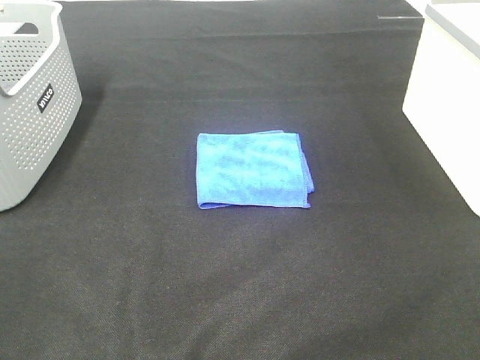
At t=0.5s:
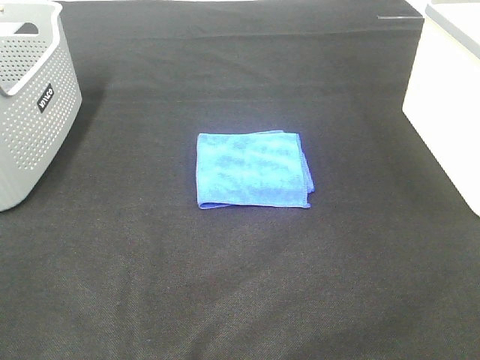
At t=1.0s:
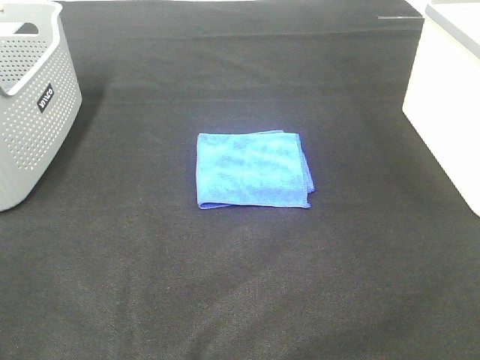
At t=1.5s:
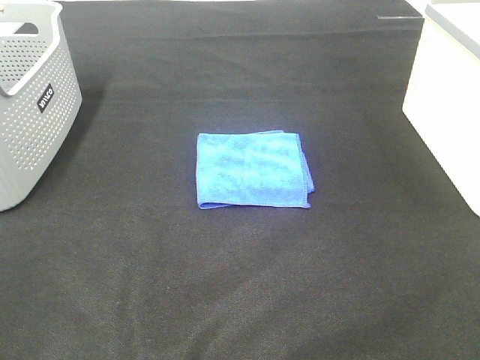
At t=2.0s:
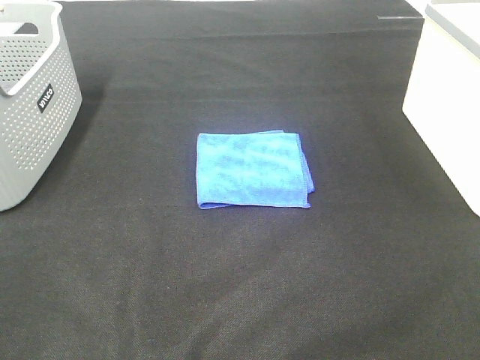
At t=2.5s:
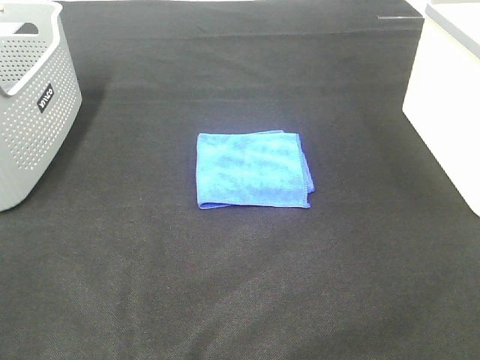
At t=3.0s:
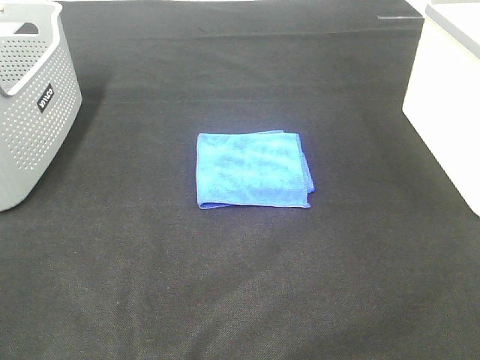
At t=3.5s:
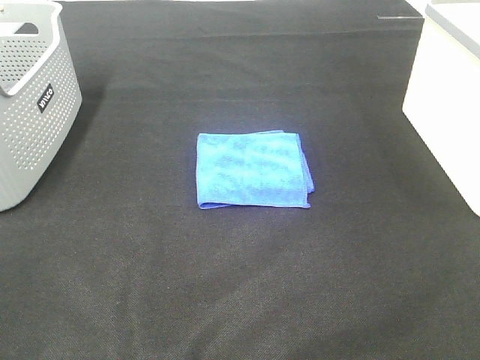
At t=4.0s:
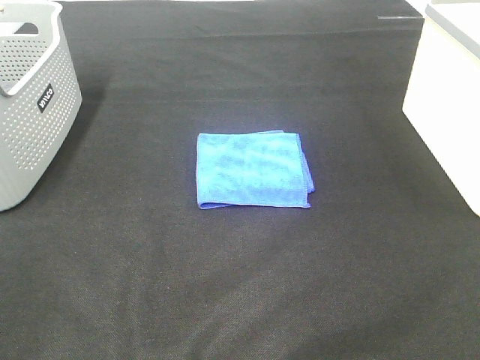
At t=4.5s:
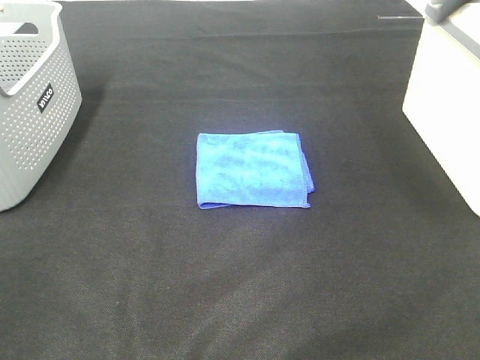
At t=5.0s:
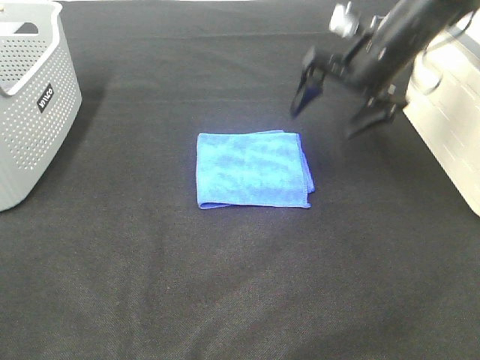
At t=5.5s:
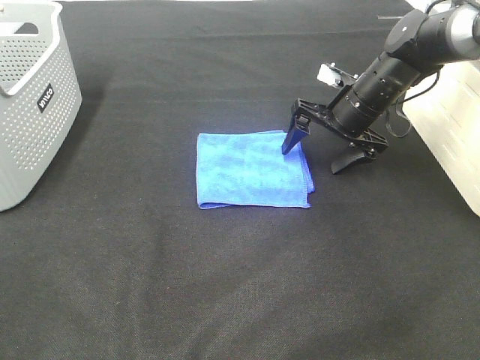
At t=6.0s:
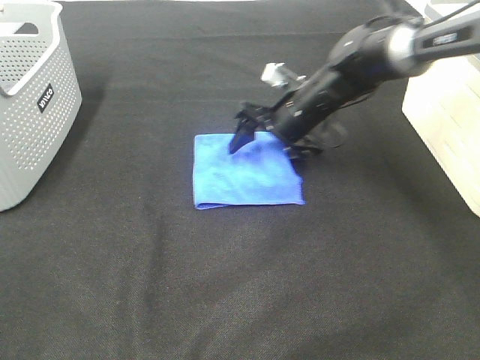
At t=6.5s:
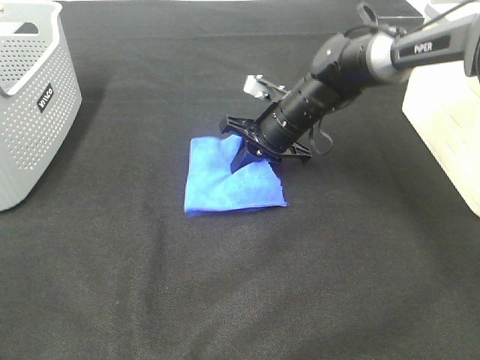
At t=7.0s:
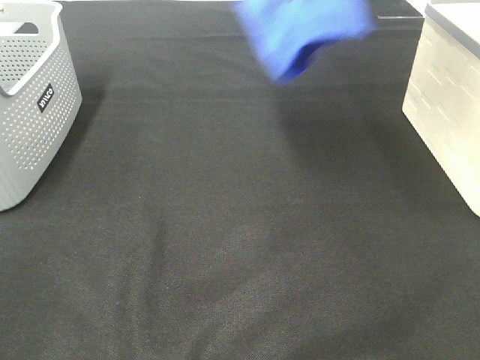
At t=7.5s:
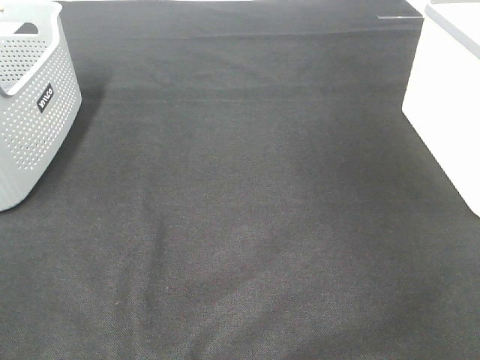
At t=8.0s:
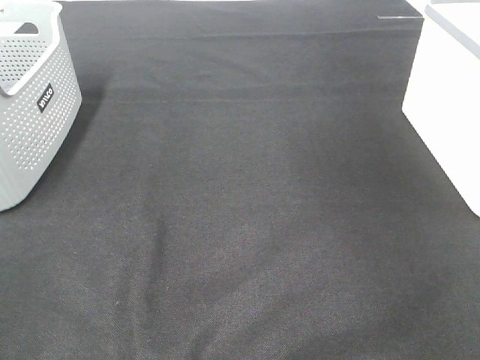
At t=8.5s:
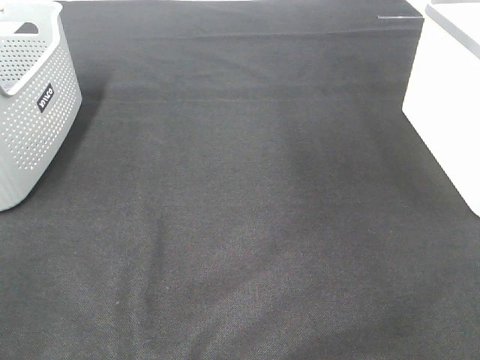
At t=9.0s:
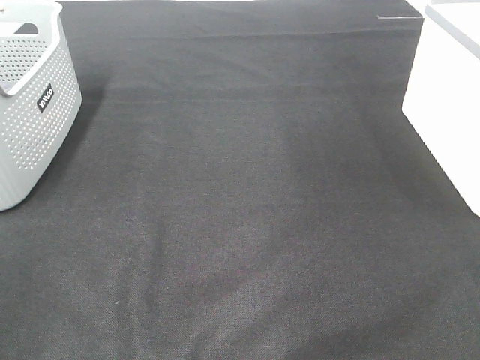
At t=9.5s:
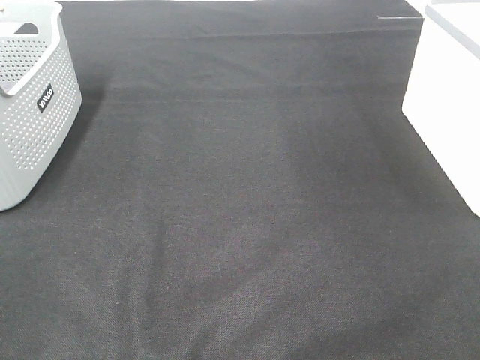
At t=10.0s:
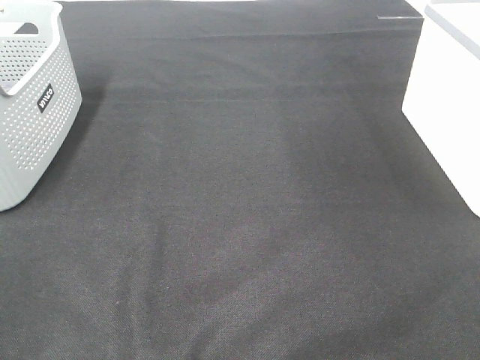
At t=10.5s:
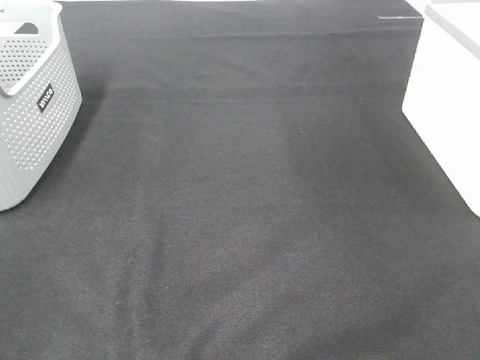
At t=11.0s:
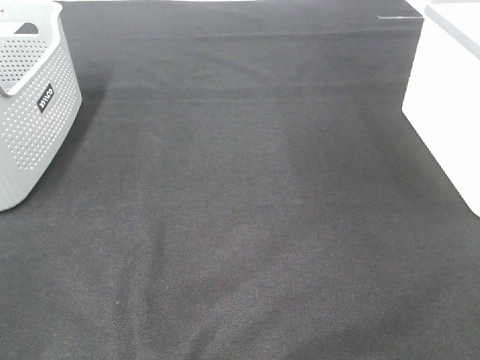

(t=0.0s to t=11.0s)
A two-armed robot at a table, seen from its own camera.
Step, t=0.0s - t=6.0s: Right hand: grab the folded blue towel.
Step, t=6.5s - t=8.0s: Right hand: place the blue towel in right basket.
t=0.0s - t=3.5s: Both grippers stay put.
t=3.5s - t=5.5s: The right gripper travels forward by some 50 cm.
t=5.5s - t=7.5s: The right gripper shifts some 40 cm upward and to the right, and closes up.

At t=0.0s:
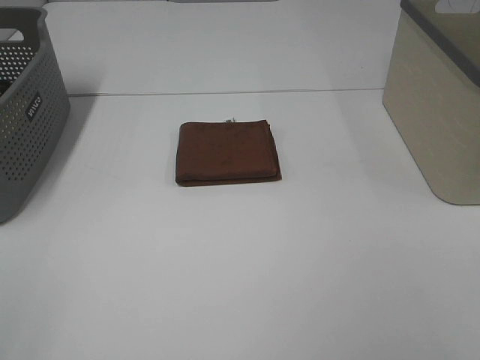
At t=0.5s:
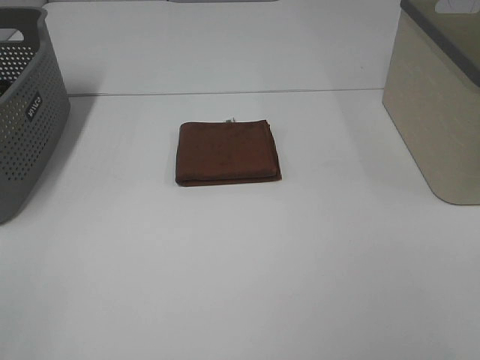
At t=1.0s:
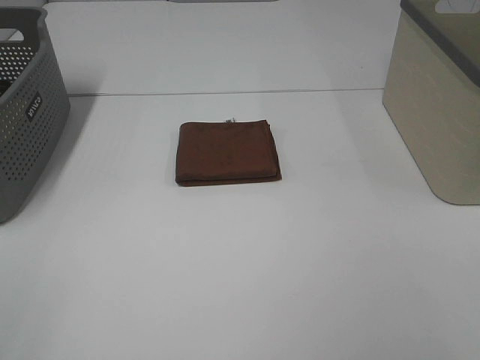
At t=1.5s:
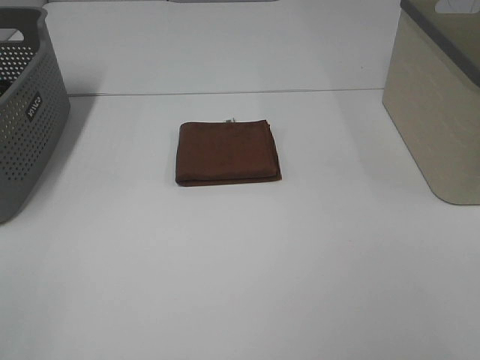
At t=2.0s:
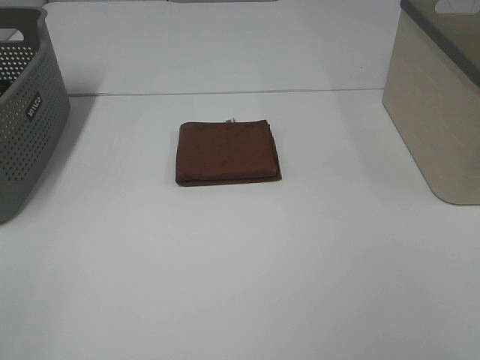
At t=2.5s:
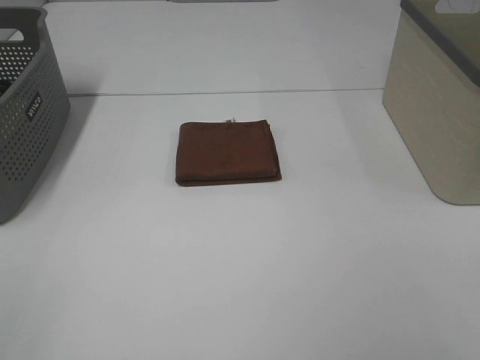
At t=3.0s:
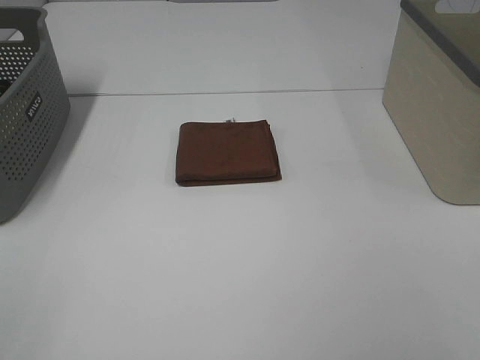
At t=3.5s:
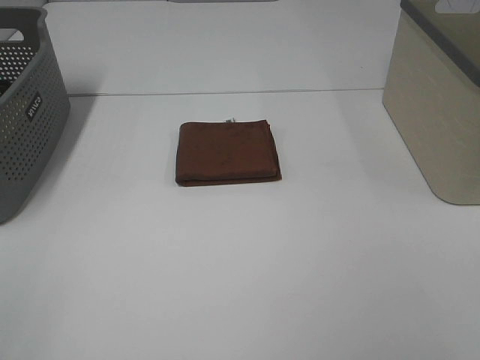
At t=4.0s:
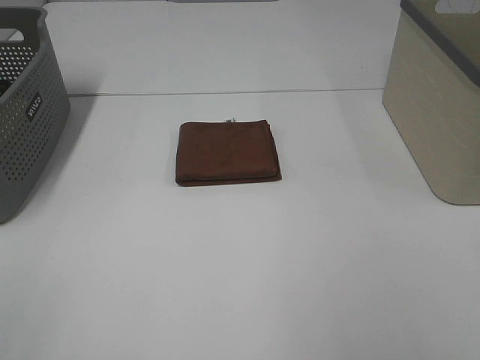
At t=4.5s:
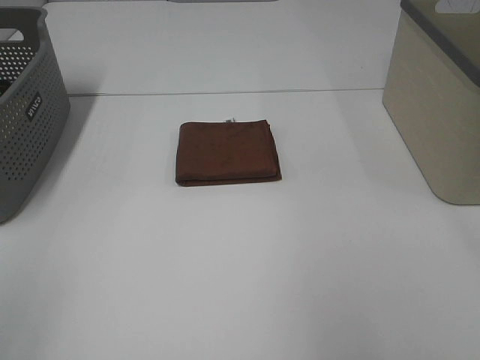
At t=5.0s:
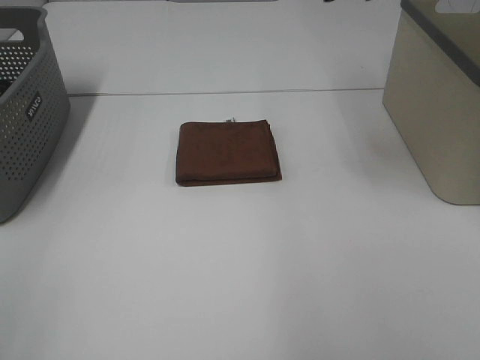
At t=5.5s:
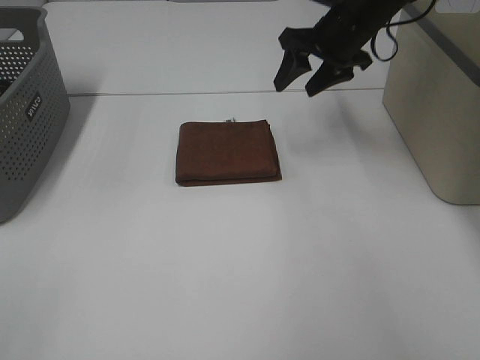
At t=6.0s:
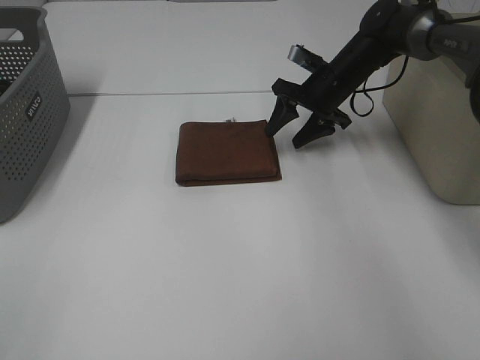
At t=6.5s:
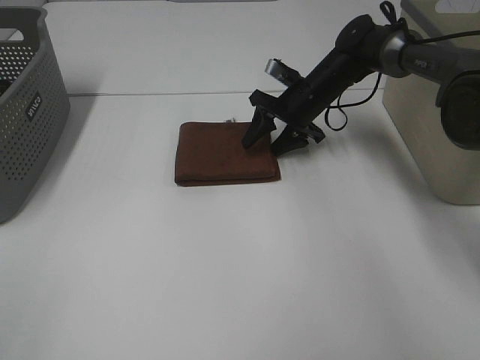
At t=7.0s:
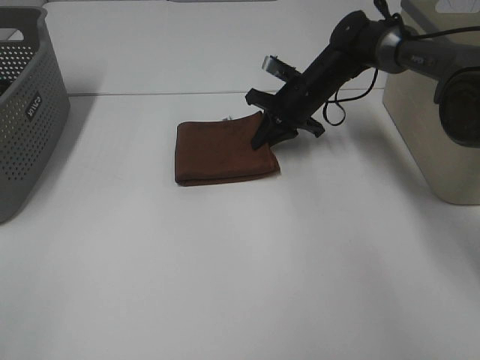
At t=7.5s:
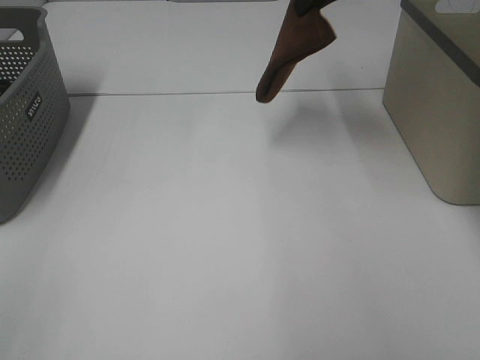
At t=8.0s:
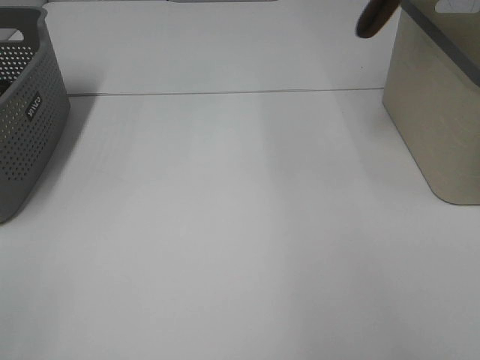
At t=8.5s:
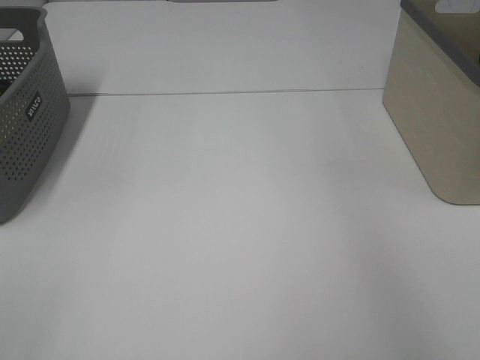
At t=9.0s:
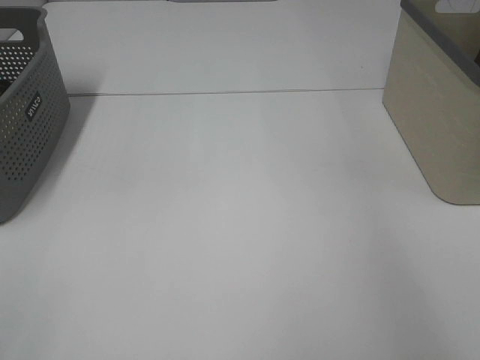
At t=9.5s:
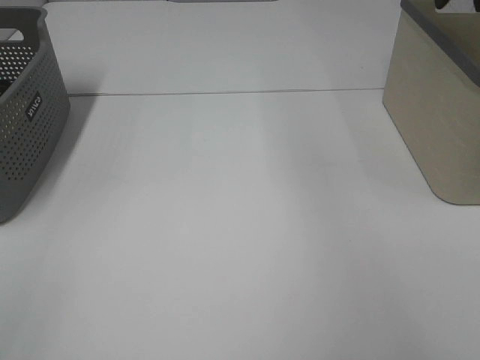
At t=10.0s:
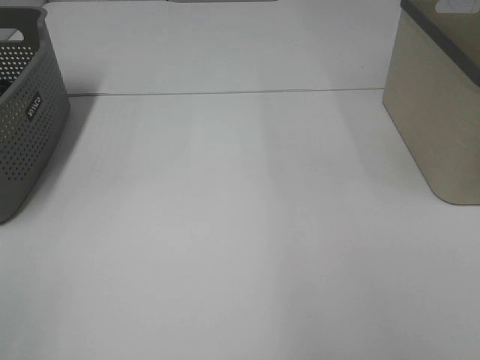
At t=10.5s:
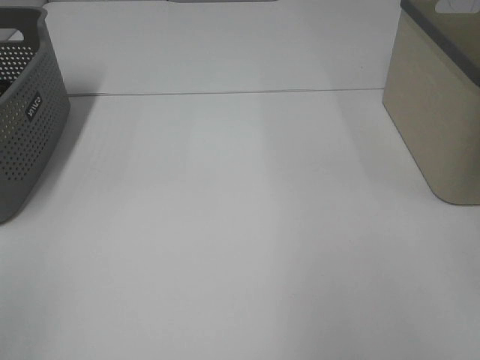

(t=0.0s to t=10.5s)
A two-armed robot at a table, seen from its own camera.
Step, t=0.0s - t=6.5s: Right hand: grab the folded brown towel.
Step, t=7.0s - t=9.0s: Right hand: place the brown towel in right basket.
t=0.0s - t=2.0s: Neither gripper changes place.
t=4.0s - t=6.5s: The right gripper heads forward and downward, covering about 50 cm.
t=6.5s - t=8.5s: The right gripper moves upward and to the right, some 40 cm, and closes its fingers.

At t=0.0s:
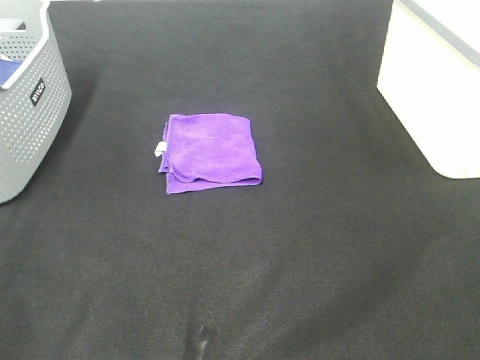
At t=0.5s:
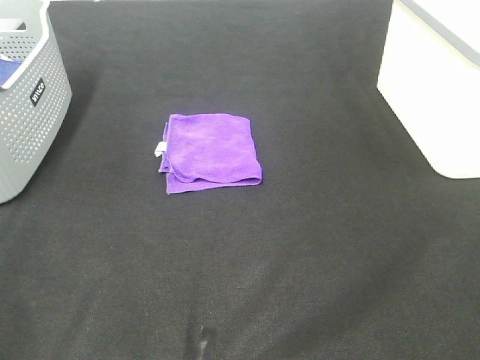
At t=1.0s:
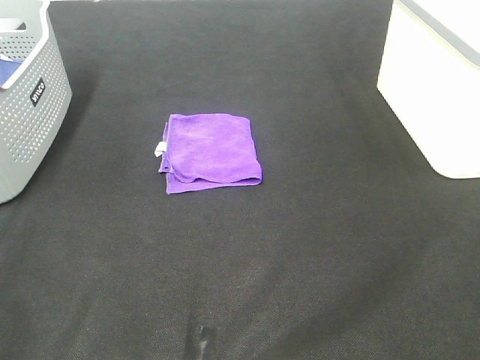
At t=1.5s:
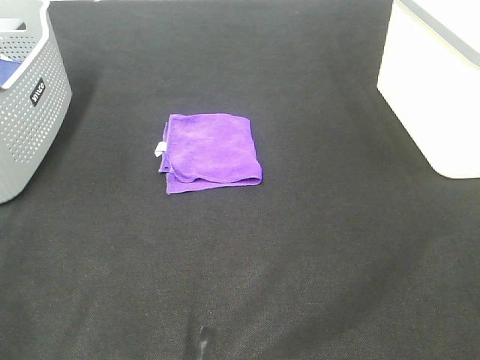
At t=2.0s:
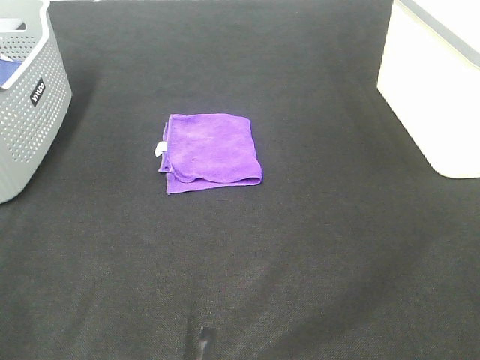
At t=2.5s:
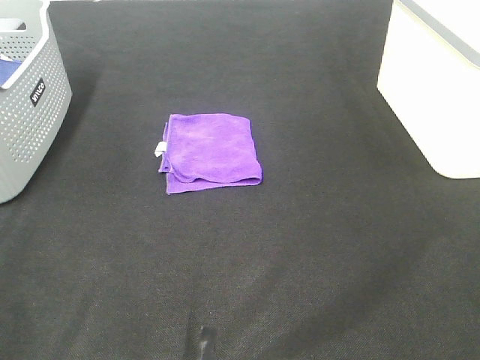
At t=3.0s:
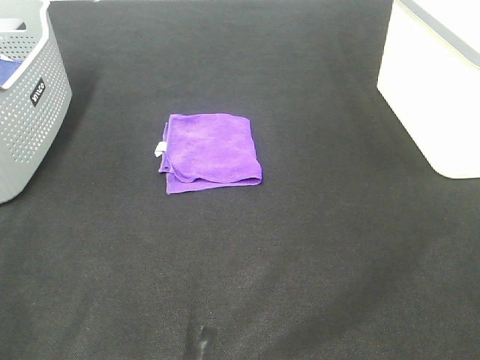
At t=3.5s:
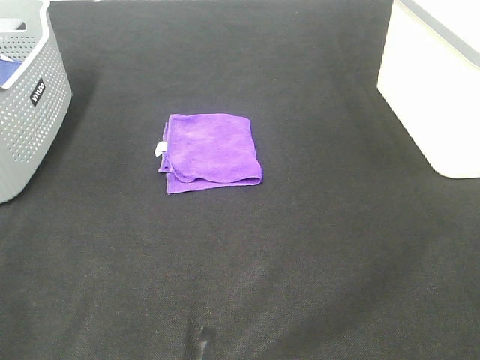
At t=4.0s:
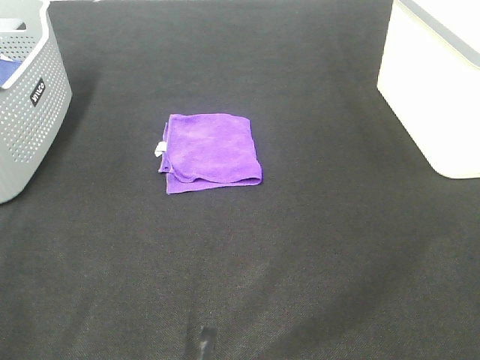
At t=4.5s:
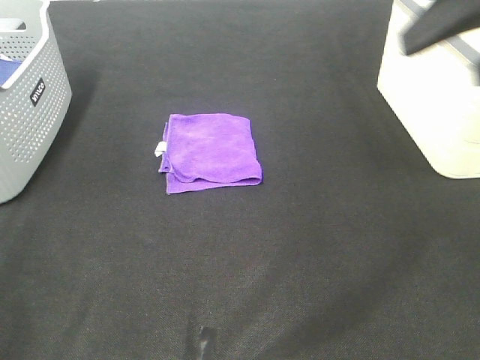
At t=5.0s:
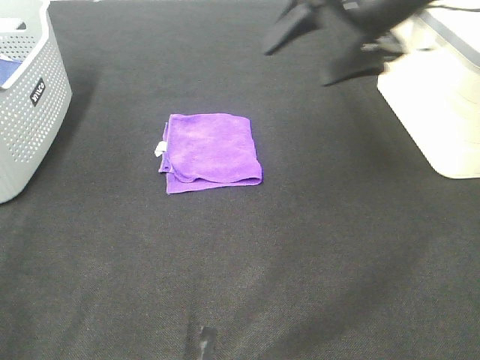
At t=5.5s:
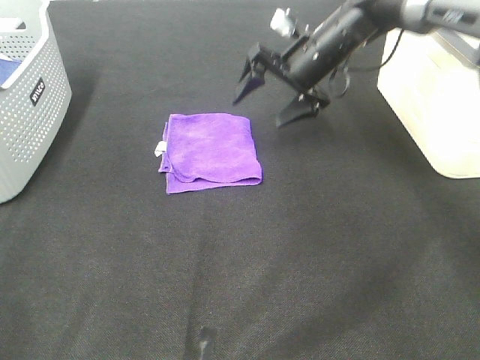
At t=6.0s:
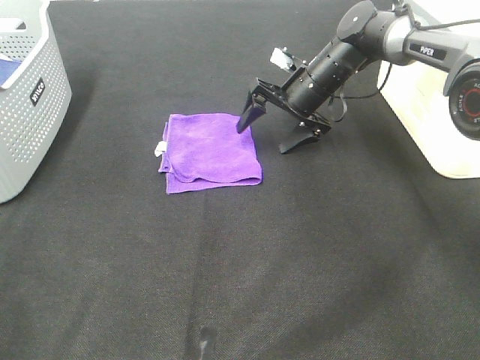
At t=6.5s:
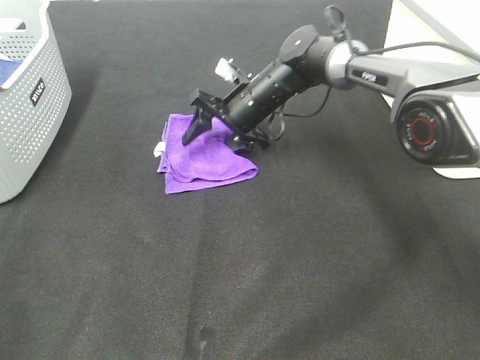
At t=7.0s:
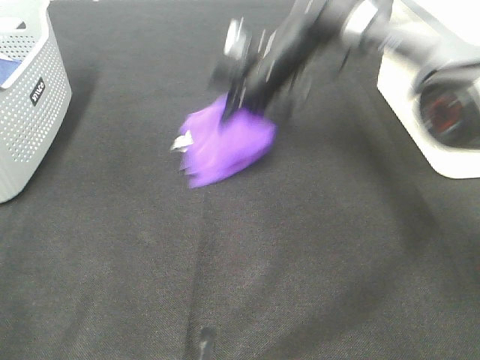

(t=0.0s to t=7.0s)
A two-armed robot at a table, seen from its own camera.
Step, t=0.0s - t=6.5s: Right hand: grab the folded purple towel.
t=0.0s - t=3.5s: Neither gripper changes place.
t=3.5s - t=5.0s: The right gripper goes roughly 40 cm forward.
t=5.0s - t=7.0s: The right gripper goes approximately 15 cm forward, downward and to the left, and closes.
